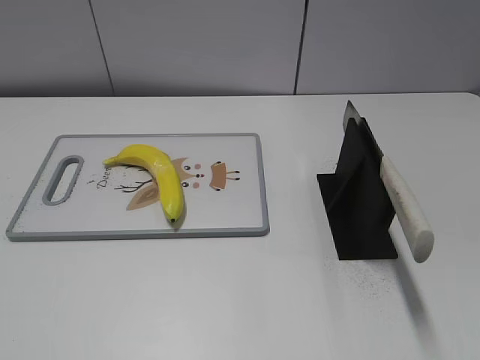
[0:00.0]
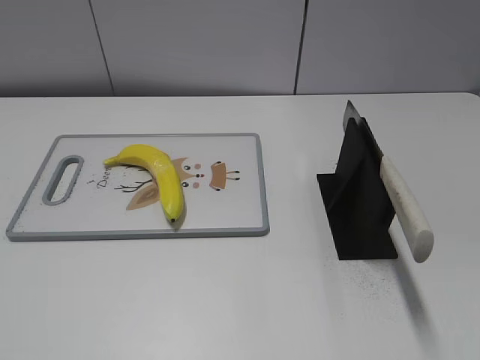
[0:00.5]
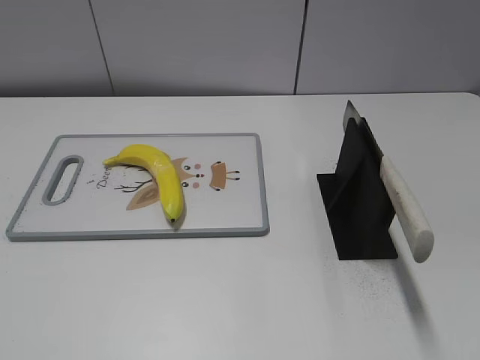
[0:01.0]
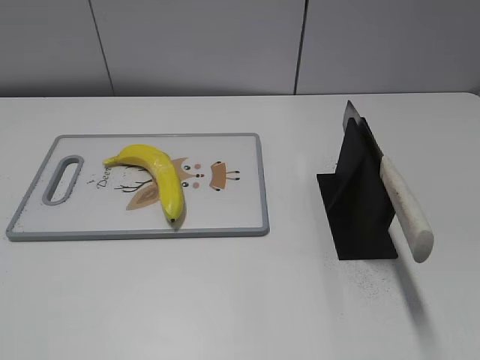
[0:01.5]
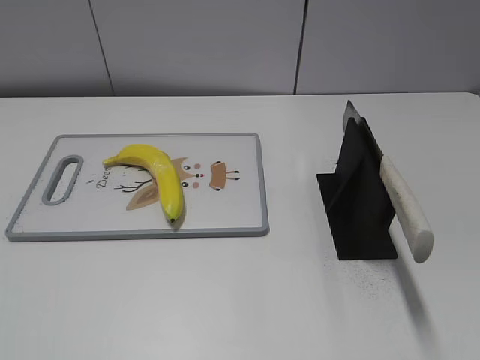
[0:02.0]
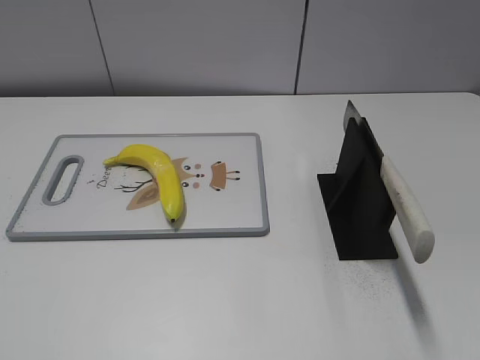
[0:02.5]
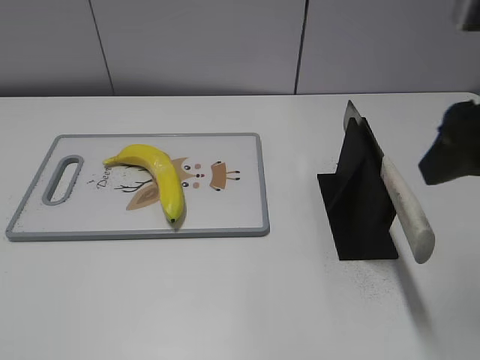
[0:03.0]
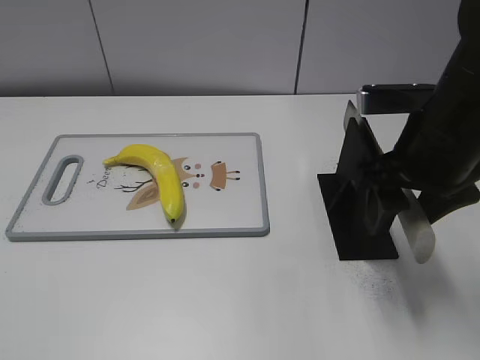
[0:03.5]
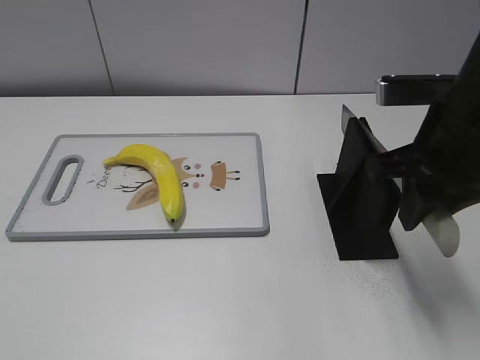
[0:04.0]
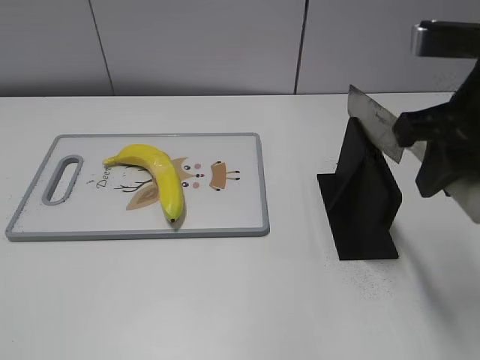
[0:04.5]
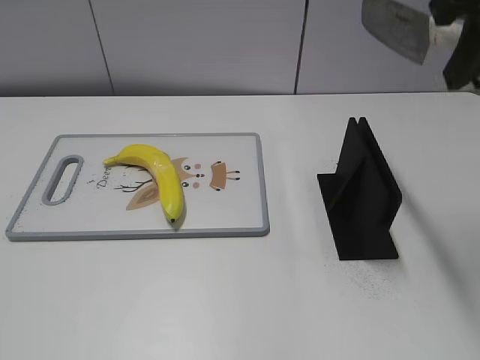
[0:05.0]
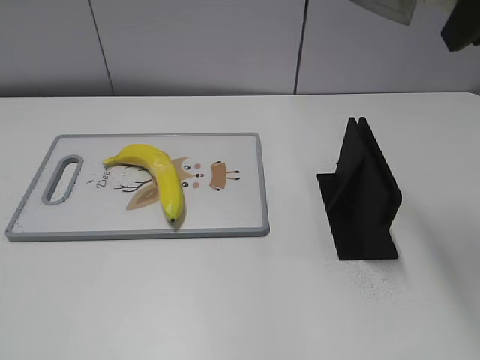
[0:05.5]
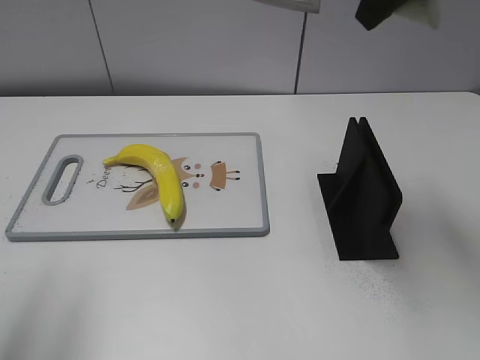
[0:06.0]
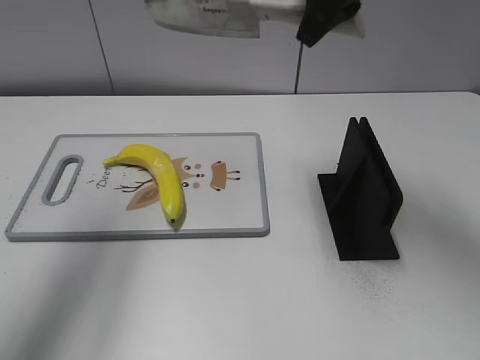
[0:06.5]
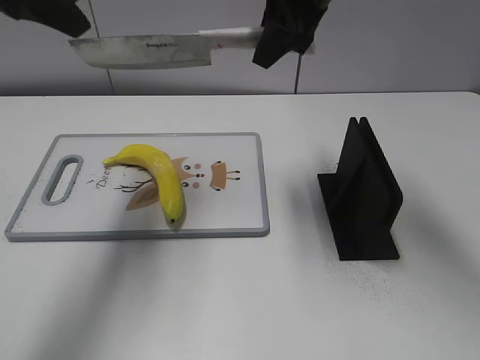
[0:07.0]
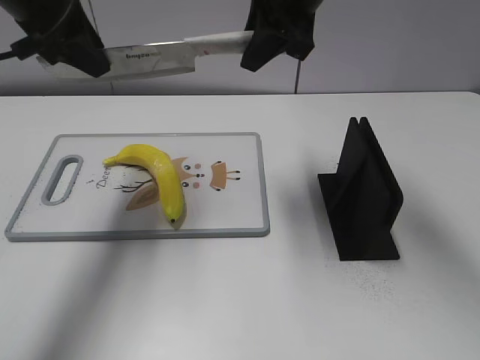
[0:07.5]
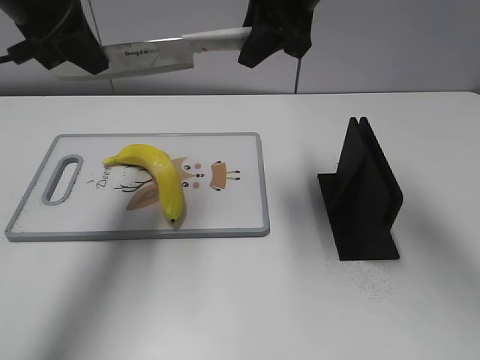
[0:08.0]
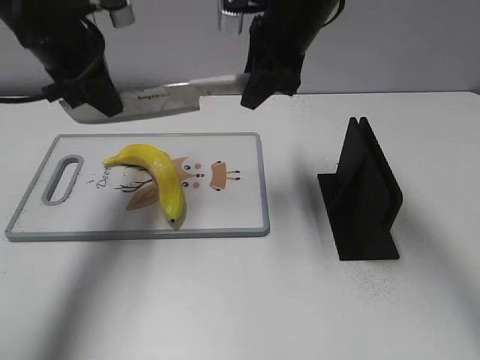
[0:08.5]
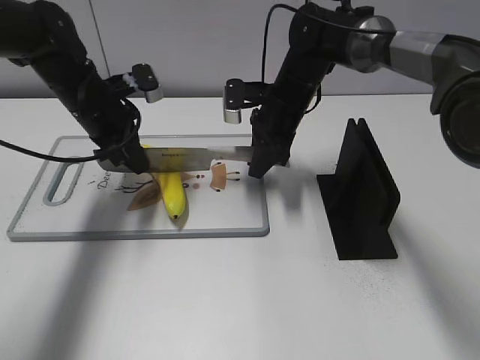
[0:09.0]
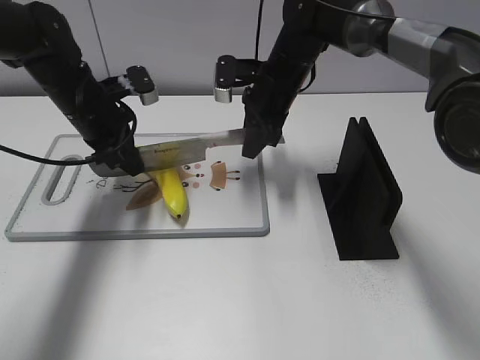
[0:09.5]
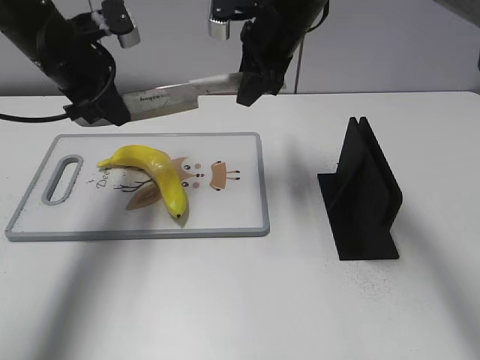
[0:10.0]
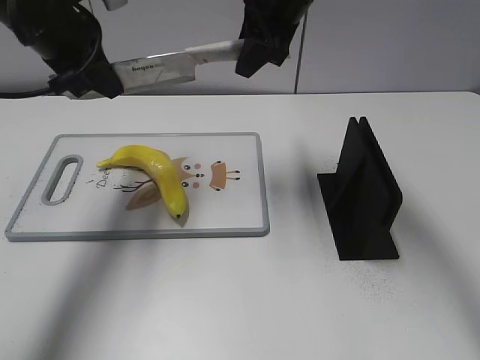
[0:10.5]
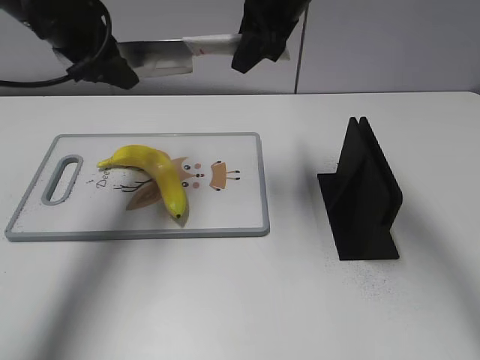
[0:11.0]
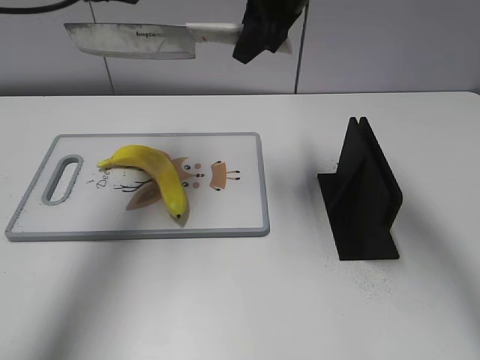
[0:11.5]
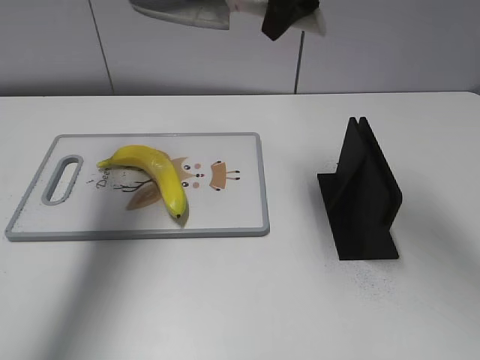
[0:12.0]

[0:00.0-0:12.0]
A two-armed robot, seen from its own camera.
Task of the whole recording: cut plastic banana.
Step, 0:00.0 to 0:04.5: Place the knife on the storage rack with your right hand.
Step, 0:05.5 to 0:09.5: Lift the knife with your right hand.
Step, 0:10.0 to 0:11.5: Cut the banana with your right hand.
0:02.0 to 0:04.0: The right gripper heads forward and to the left, covering approximately 30 cm, and closes up.
0:04.0 to 0:06.0: The left gripper travels forward and upward by some 20 cm. The right gripper heads upward and forward, covering about 15 cm.
0:06.0 to 0:08.0: The left gripper shifts roughly 25 cm forward and to the right, and closes; the right gripper goes about 15 cm to the left, forward and downward.
0:08.0 to 0:10.0: The left gripper goes roughly 10 cm downward. The right gripper reaches roughly 20 cm downward, then returns.
0:10.0 to 0:12.0: The left gripper goes some 15 cm upward, and opens its fingers; the right gripper travels upward by approximately 10 cm.

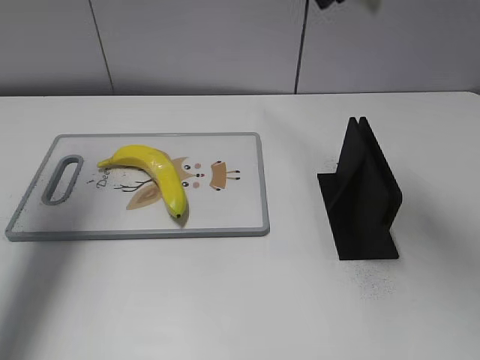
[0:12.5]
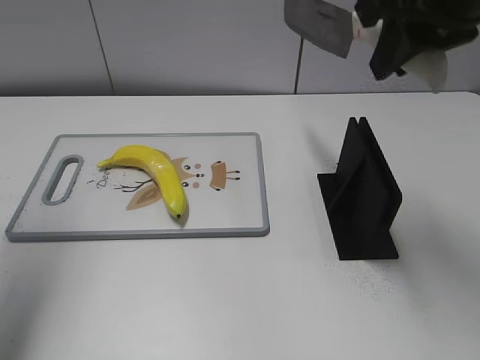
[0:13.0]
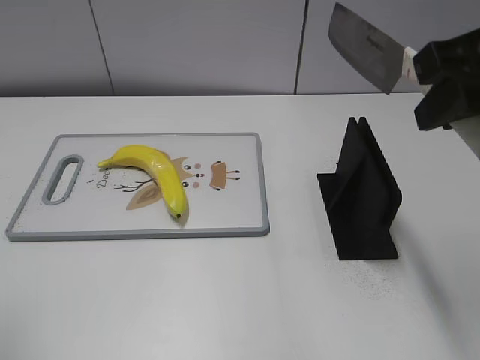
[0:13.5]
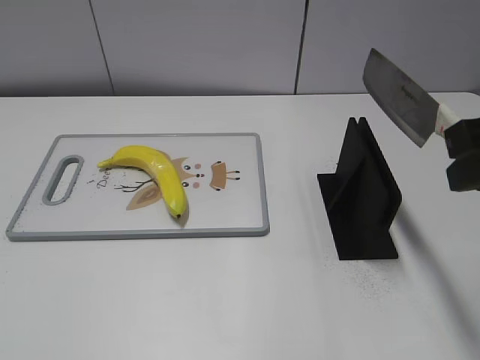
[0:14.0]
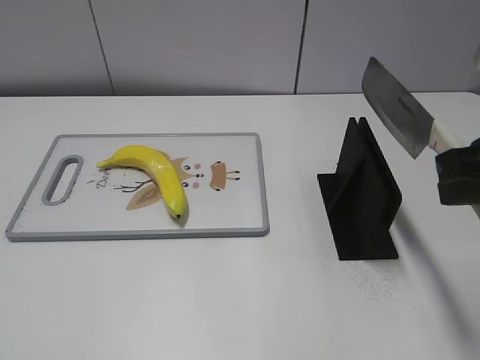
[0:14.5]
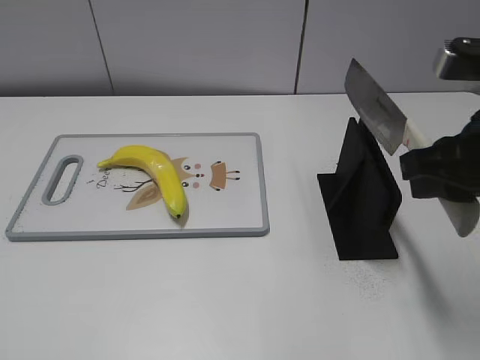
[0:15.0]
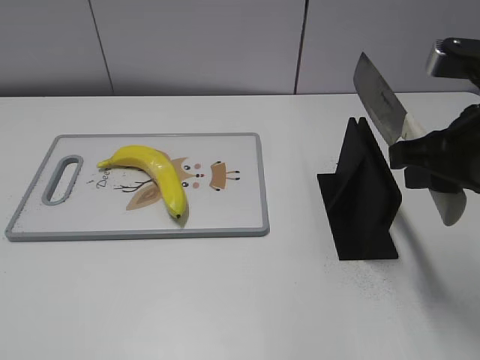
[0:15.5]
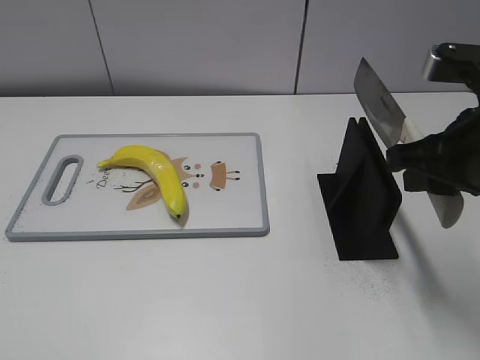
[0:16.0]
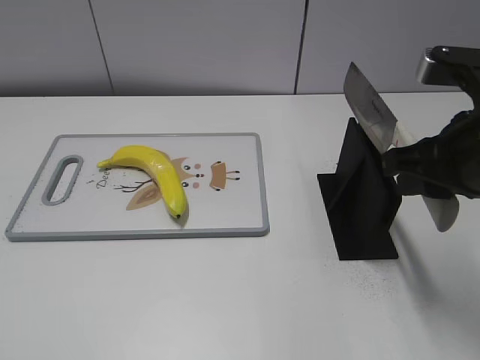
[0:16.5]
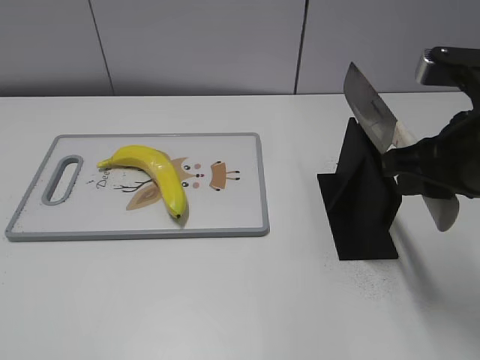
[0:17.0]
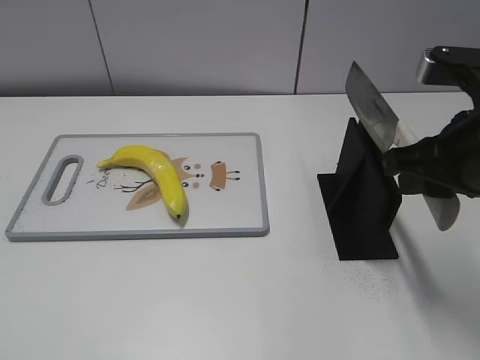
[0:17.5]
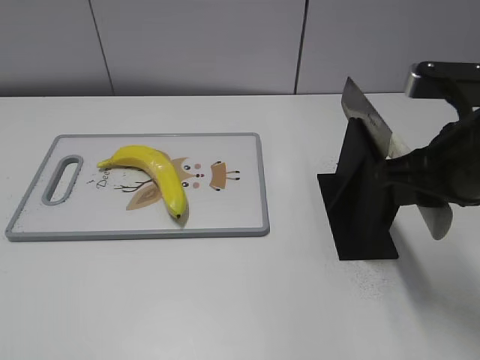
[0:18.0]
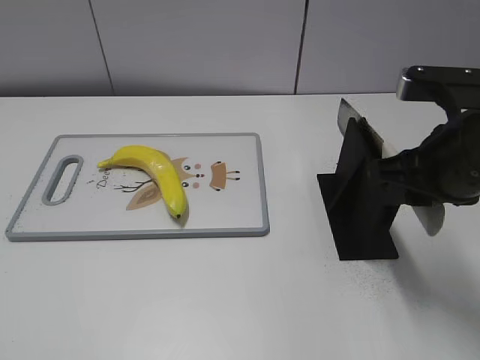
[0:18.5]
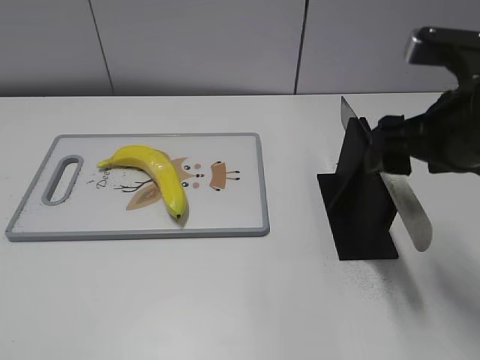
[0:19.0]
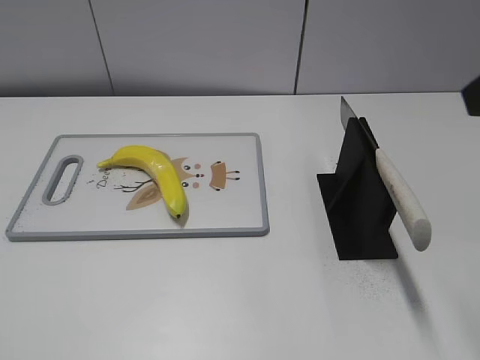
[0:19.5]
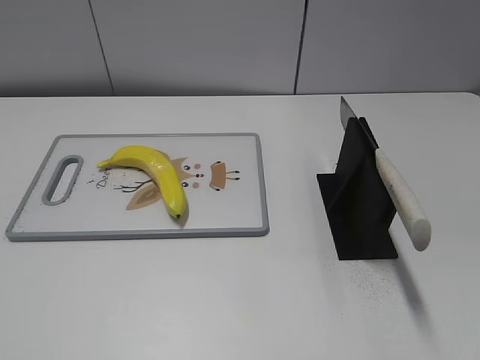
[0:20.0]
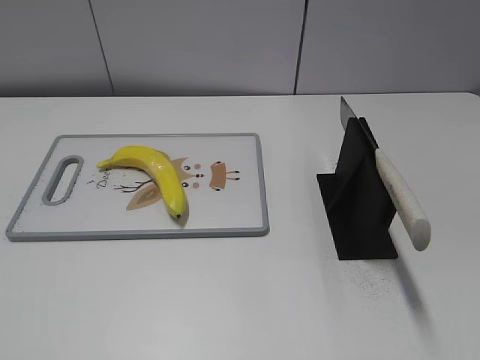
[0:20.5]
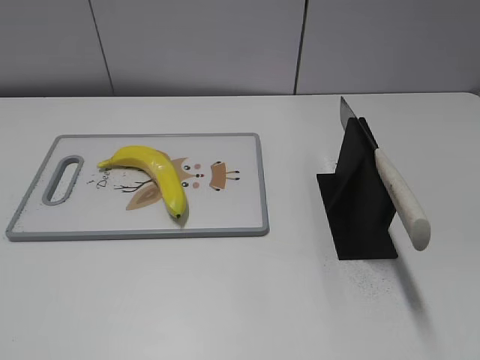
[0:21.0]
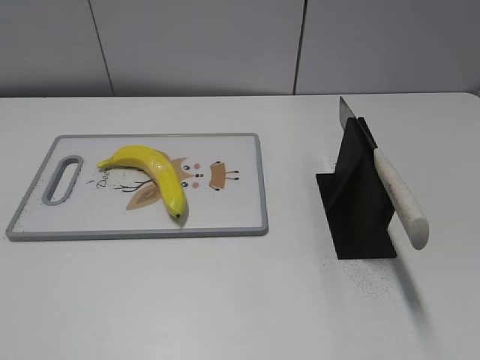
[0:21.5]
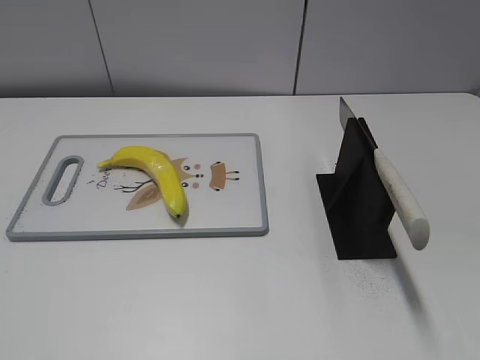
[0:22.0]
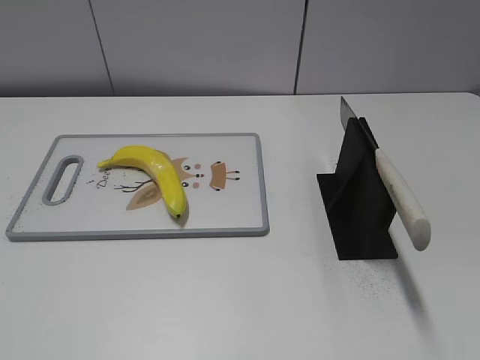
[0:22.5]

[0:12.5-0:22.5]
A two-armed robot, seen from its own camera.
Task of the whole recording: cut plastic banana.
Step, 0:13.5 to 0:22.5: Place the knife on the storage rack with your right hand.
0:12.5 to 0:14.5: The left gripper travels backward by some 35 cm. Meanwhile the right gripper heads backward, downward and to the right, covering some 25 cm.
0:14.5 to 0:16.5: The right gripper moves approximately 5 cm.
0:16.5 to 0:18.5: The grippers stay close to where they were, moving slightly.
0:18.5 to 0:20.5: The right gripper travels backward and to the right by roughly 25 cm, and opens its fingers.
